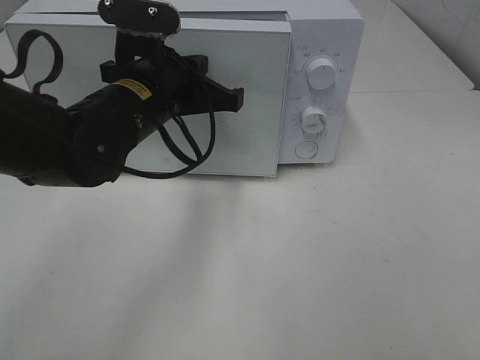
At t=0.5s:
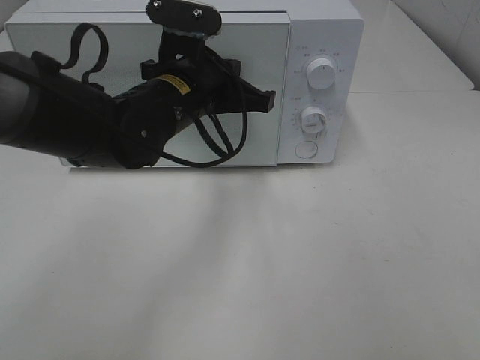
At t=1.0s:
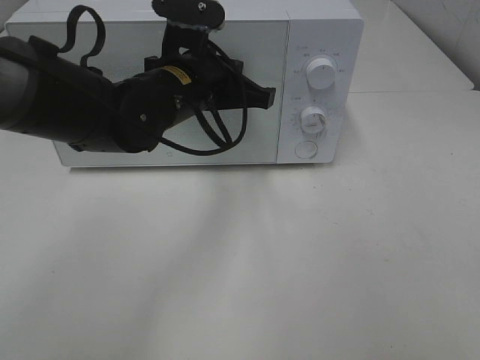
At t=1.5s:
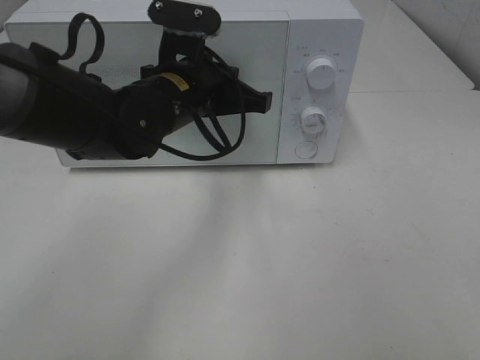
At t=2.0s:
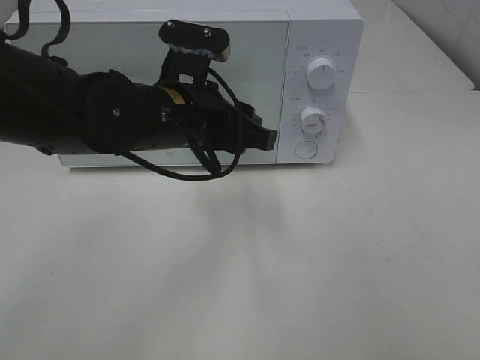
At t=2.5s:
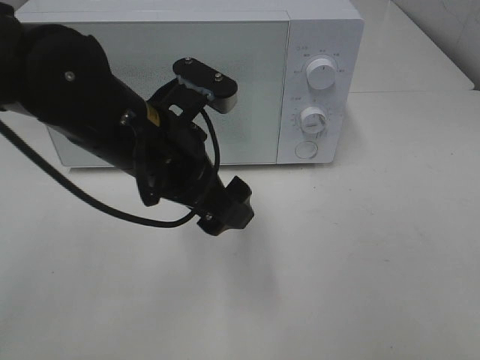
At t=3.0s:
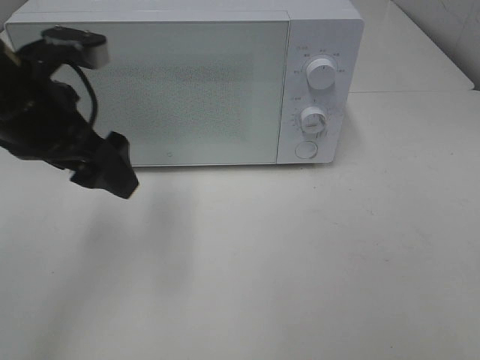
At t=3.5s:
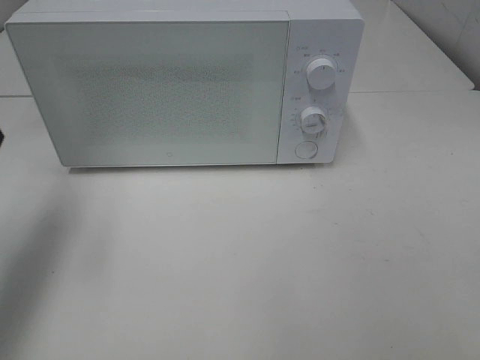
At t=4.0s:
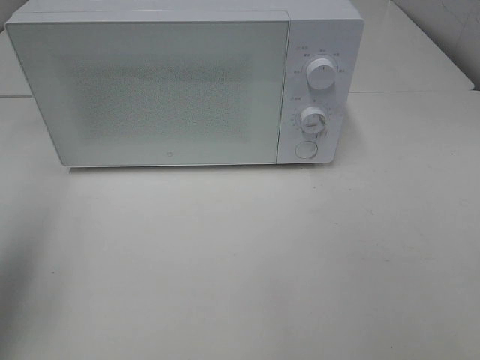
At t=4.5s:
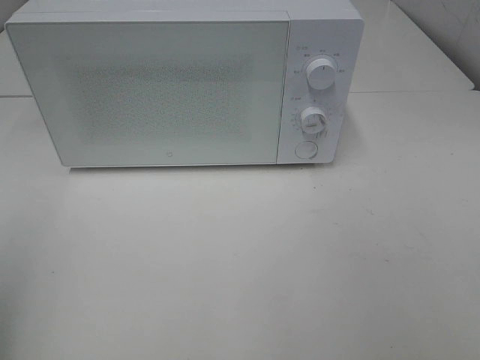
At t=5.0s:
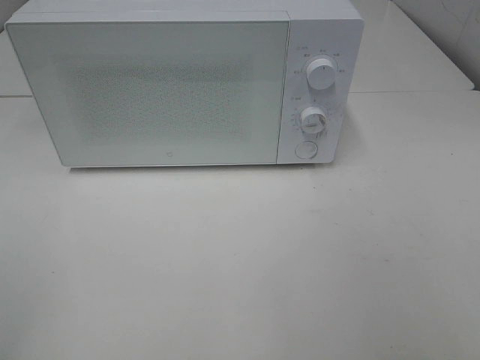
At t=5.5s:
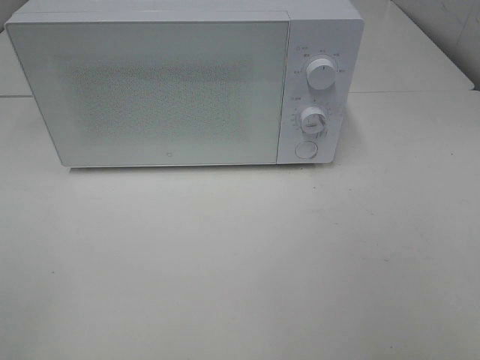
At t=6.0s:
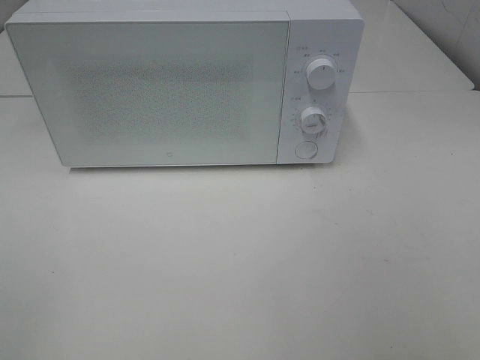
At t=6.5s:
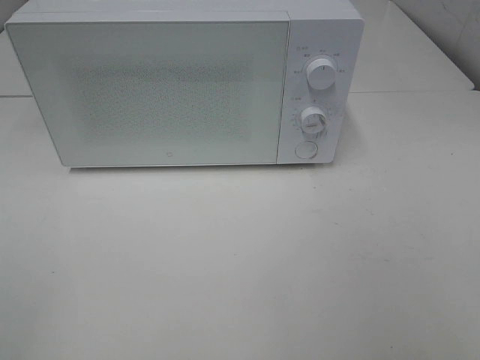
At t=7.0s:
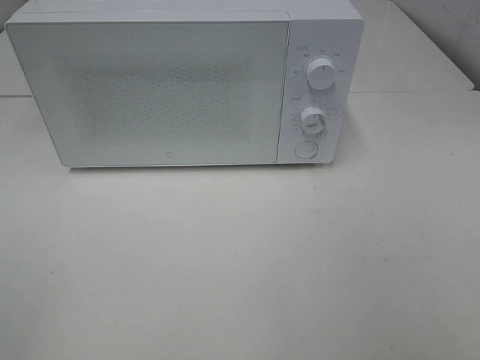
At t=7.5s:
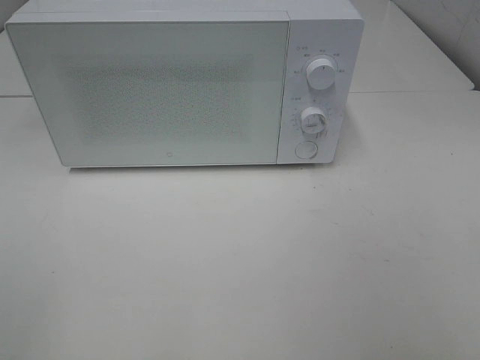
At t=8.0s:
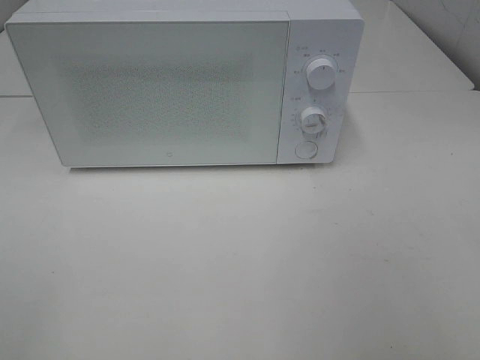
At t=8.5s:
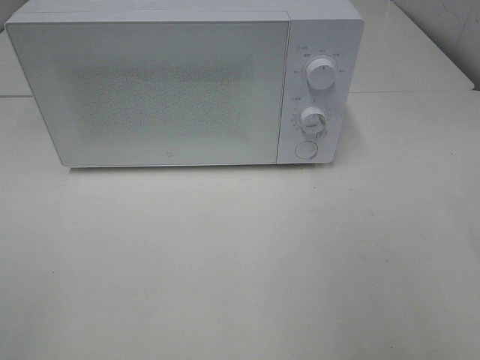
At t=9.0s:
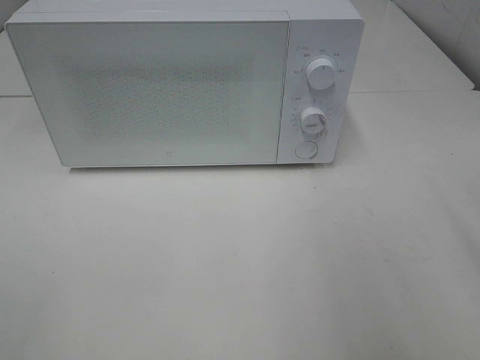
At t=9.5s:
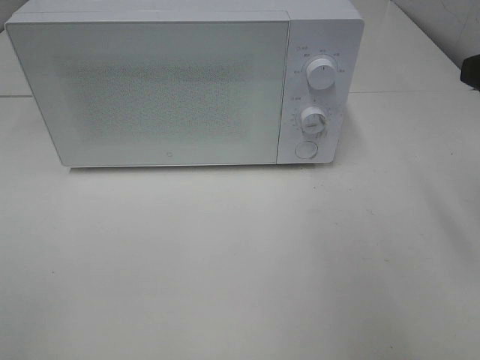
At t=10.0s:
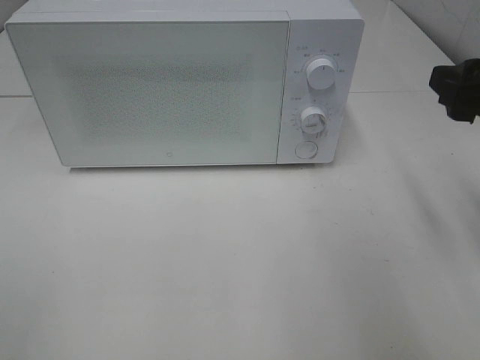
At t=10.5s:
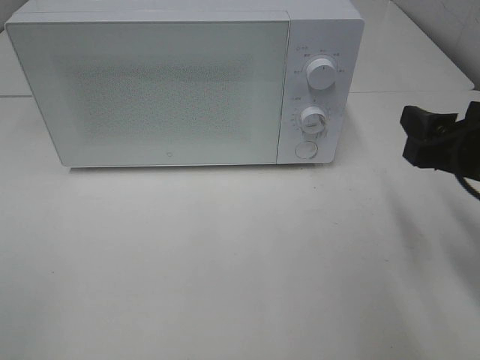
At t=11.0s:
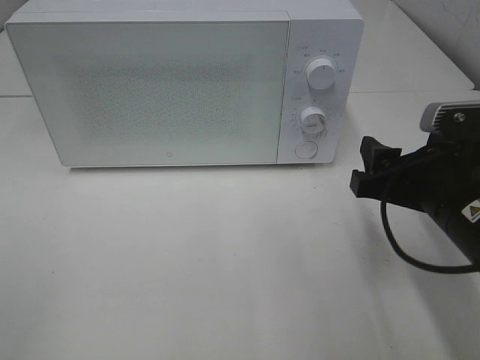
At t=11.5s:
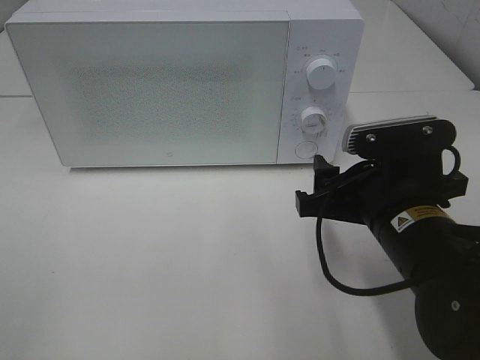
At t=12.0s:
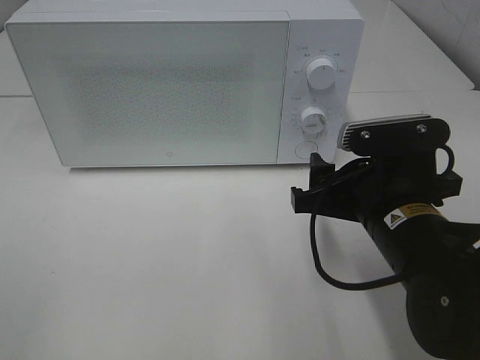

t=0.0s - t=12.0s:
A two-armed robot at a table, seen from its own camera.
Task of the whole recording: Heat Sandwich.
Step, t=0.0s - t=2.0s: Left hand: close the microwave door.
t=0.0s - t=2.0s: The left gripper opens up.
t=2.0s - t=4.0s: The left gripper goes approximately 30 cm to the left and upward, and opens.
t=4.0s - t=6.0s: The left gripper is displaced backward by some 20 cm.
t=8.0s - t=10.0s: The right gripper heads forward, covering some 15 cm.
t=10.0s - t=12.0s: The right gripper moves to the left and downward, roughly 15 cm.

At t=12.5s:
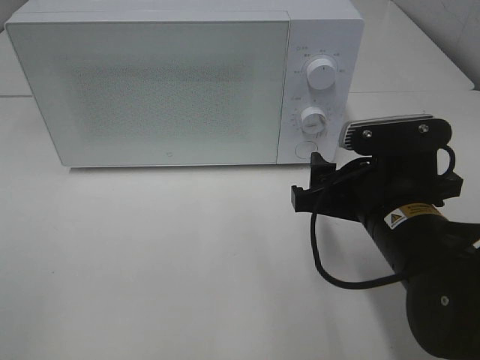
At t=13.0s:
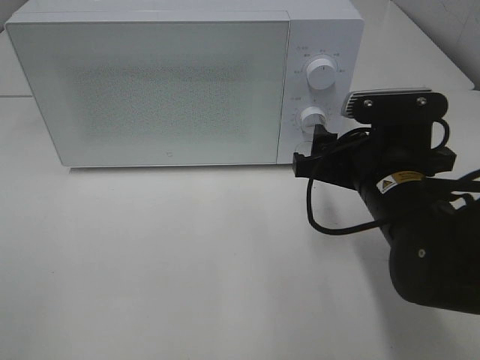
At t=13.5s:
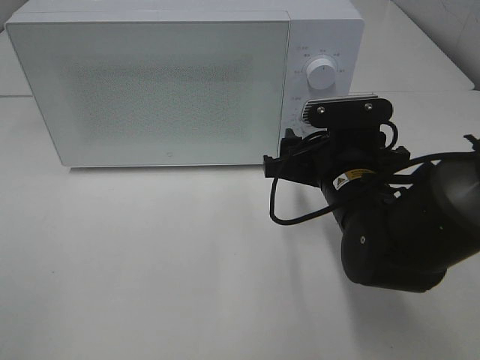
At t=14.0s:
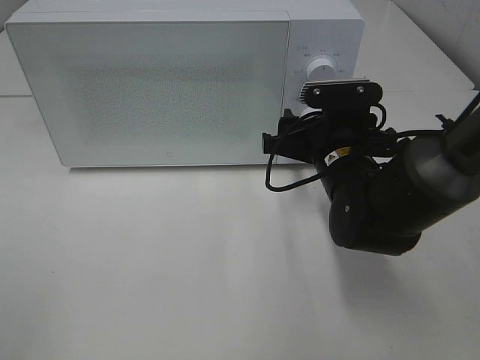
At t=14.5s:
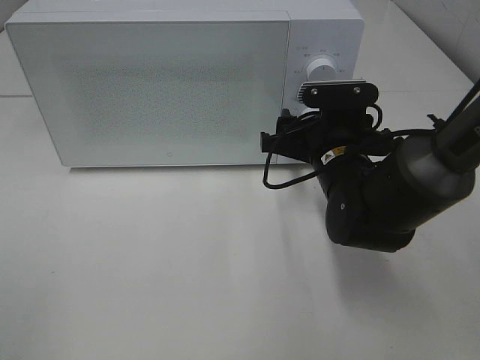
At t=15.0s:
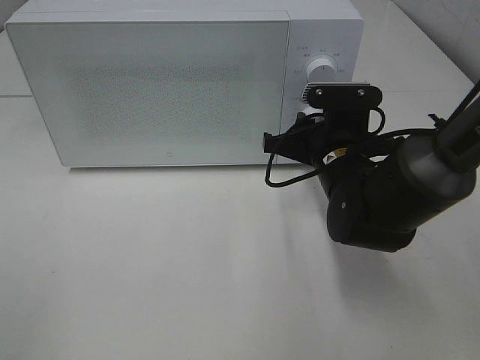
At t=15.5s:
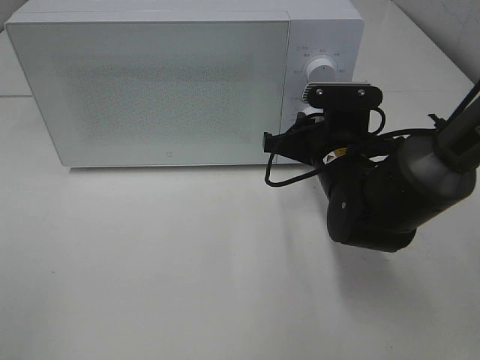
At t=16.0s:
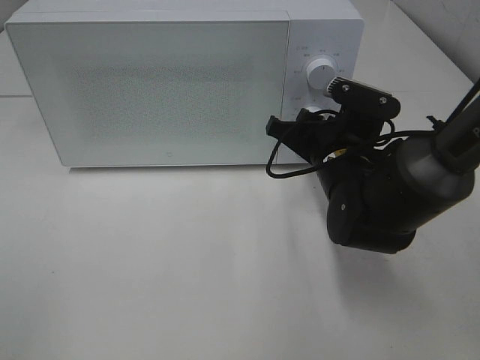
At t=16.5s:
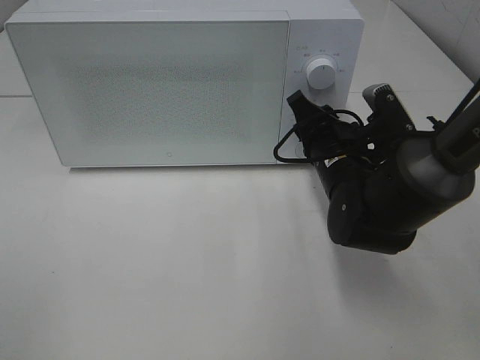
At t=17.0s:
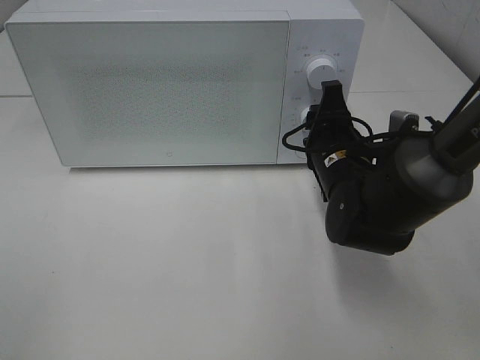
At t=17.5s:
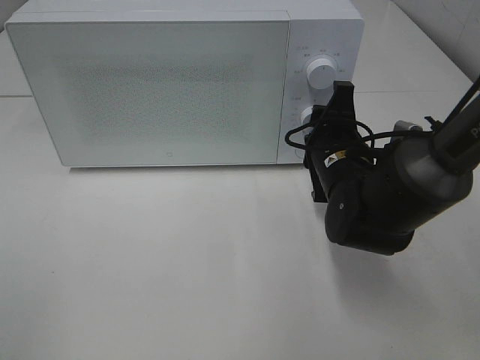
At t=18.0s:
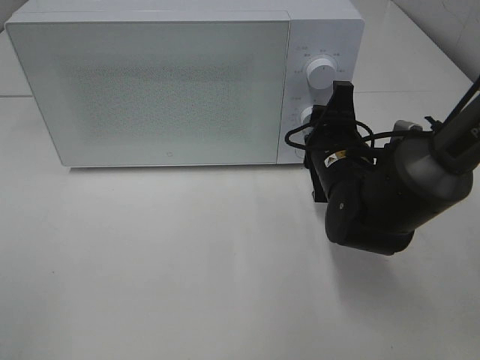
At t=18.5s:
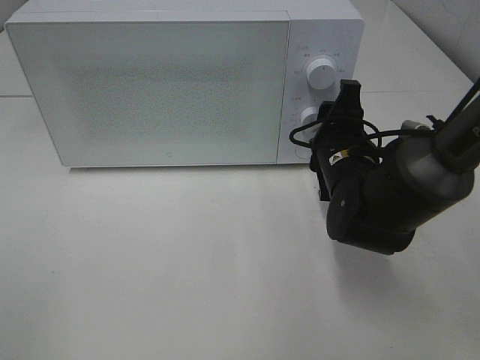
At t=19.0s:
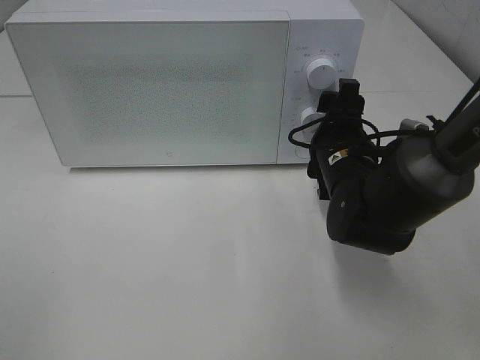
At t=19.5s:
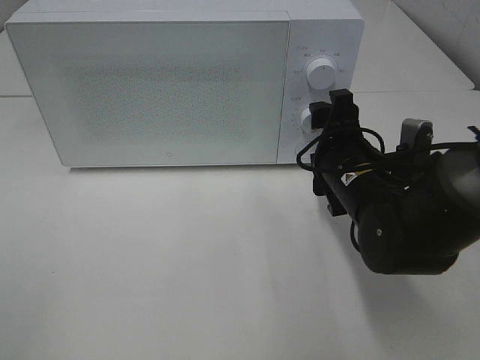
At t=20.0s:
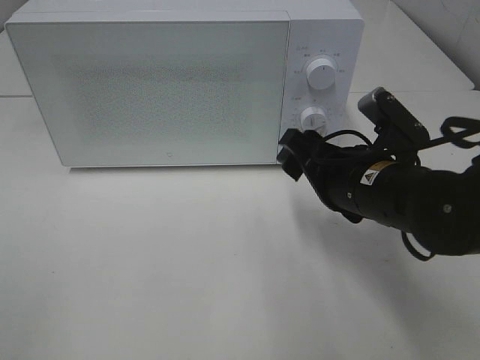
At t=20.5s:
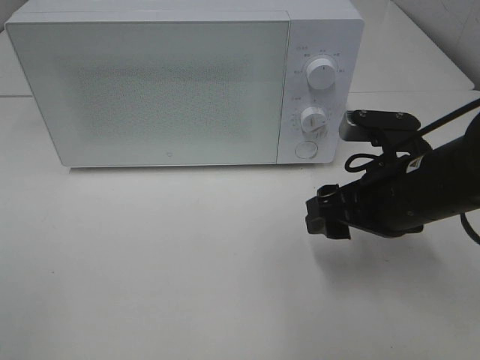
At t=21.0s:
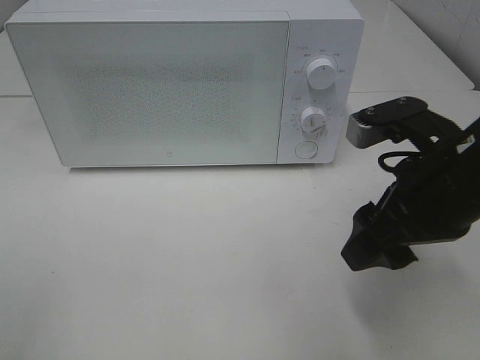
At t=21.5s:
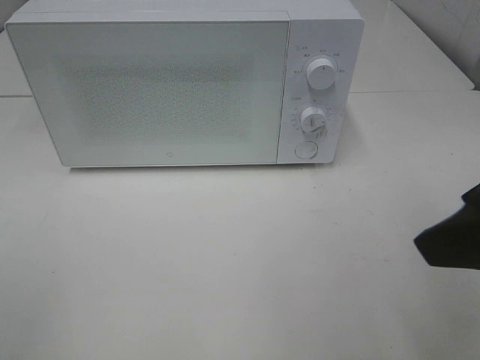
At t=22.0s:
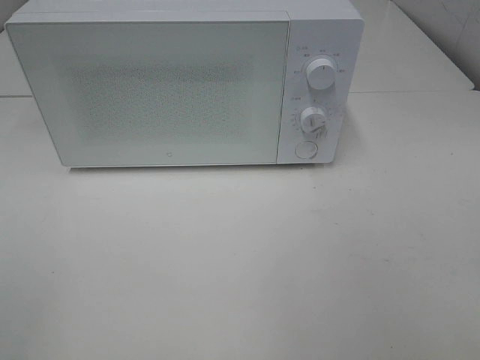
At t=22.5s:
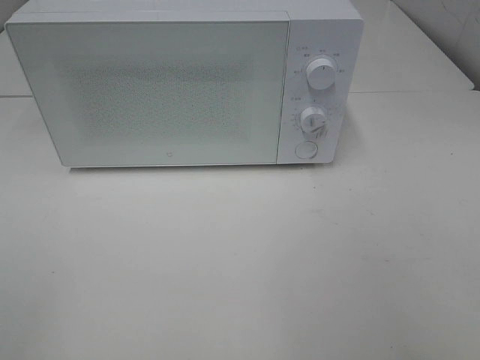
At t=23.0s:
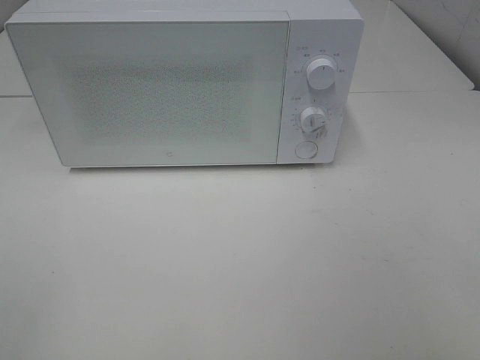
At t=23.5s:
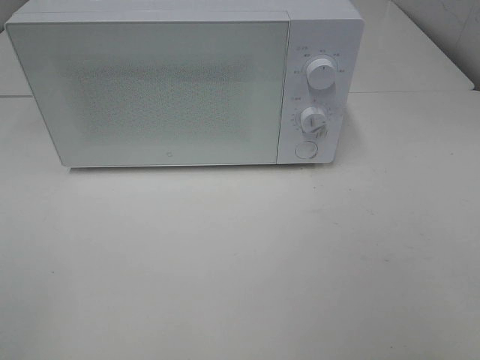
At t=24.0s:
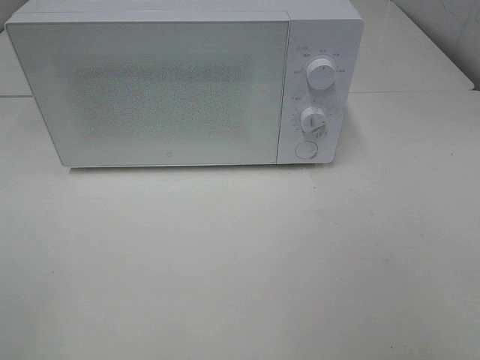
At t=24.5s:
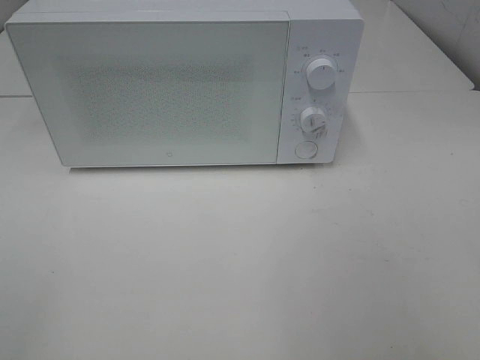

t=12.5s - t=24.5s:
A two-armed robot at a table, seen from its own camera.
Task of the whole recording: Heat Sandwich.
Step, t=12.5s - t=19.5s: Right hand: twist timer button.
t=12.5s - t=14.5s: The right gripper shifts about 10 cm forward.
t=14.5s - t=16.5s: The right gripper closes up.
t=18.5s - t=20.5s: The right gripper heads backward, covering about 10 cm.
t=20.5s - t=22.5s: The right gripper travels backward, upward and to the right by approximately 30 cm.

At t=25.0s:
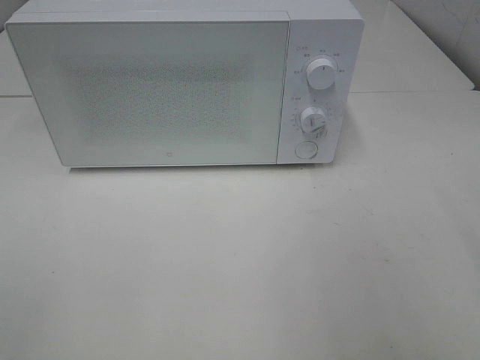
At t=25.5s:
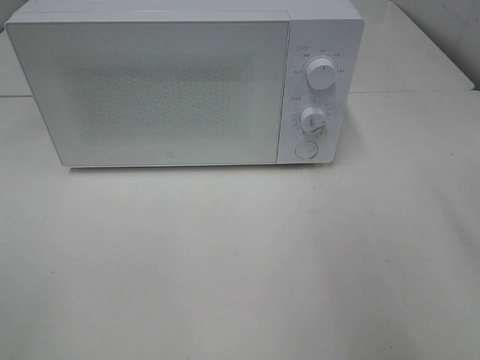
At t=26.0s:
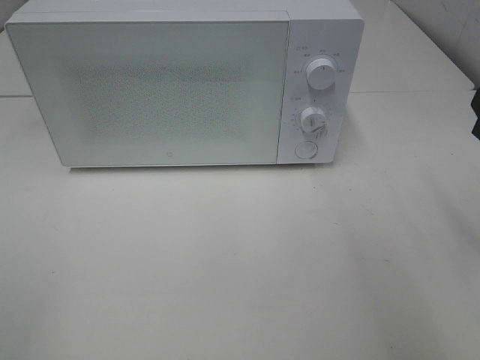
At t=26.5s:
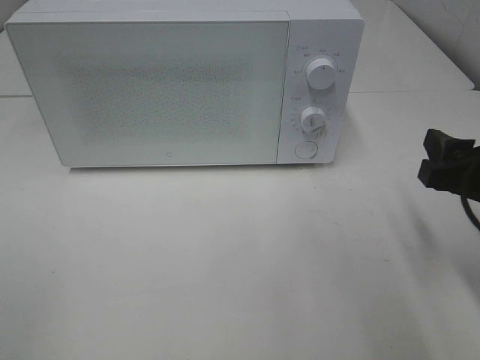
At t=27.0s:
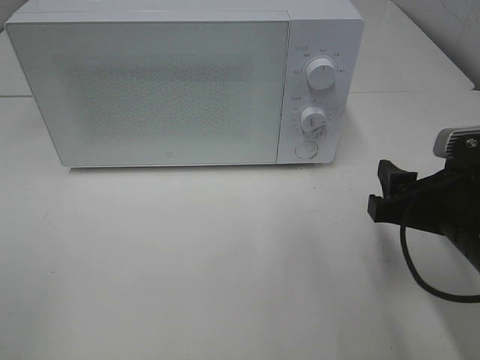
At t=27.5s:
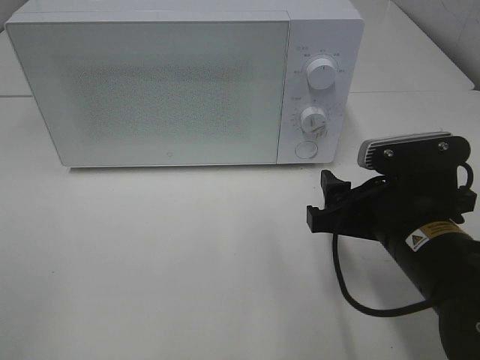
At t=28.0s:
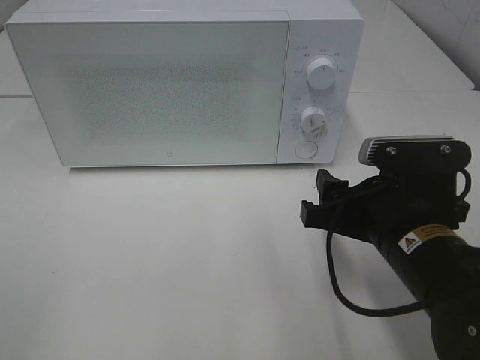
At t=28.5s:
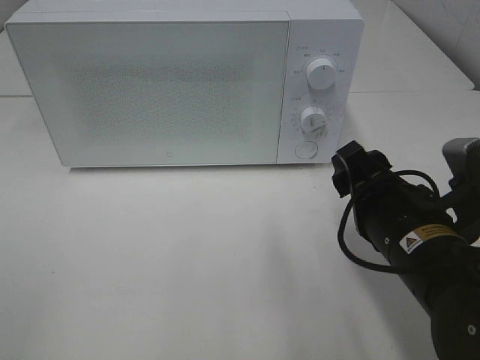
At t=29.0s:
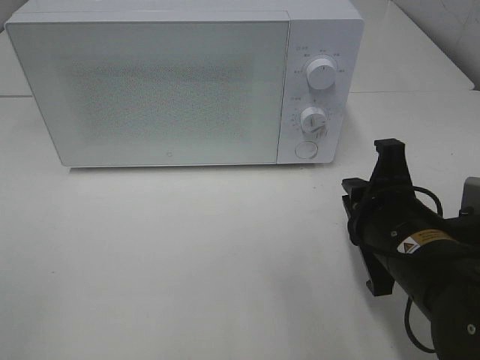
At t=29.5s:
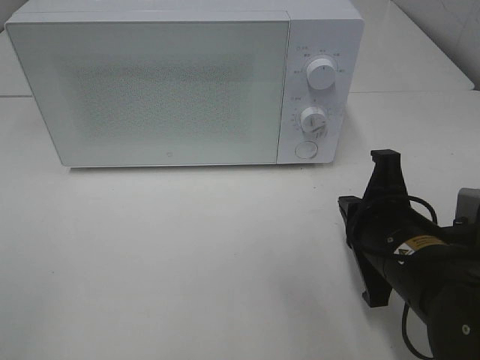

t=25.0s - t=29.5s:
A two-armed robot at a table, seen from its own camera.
Task of the whole recording: Heat Sandwich.
t=25.0s - t=27.0s: The right gripper is displaced downward and forward by some 20 cm.
t=27.0s - t=29.5s: The right gripper travels to the left by some 5 cm, and closes.
